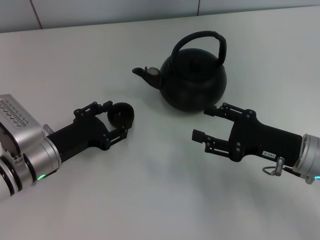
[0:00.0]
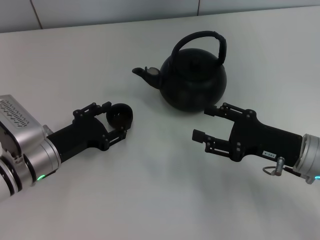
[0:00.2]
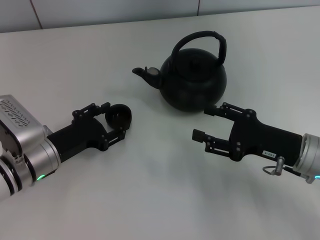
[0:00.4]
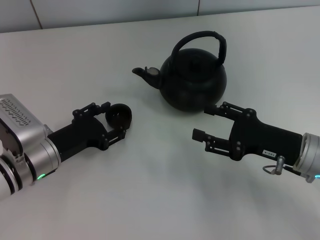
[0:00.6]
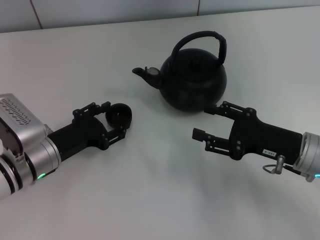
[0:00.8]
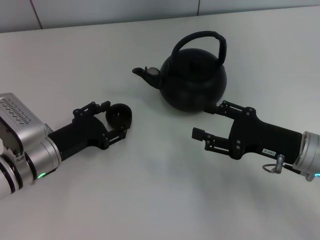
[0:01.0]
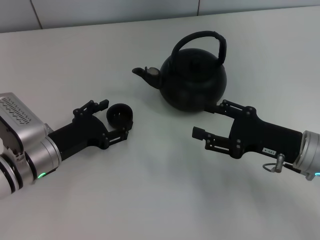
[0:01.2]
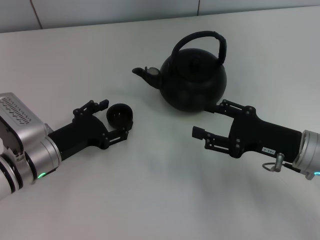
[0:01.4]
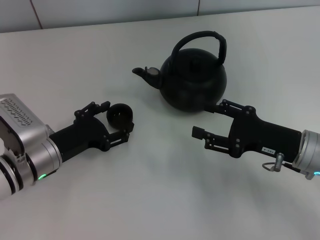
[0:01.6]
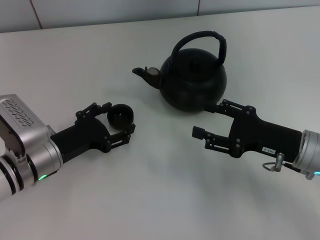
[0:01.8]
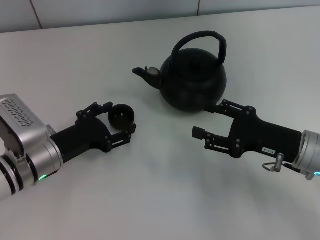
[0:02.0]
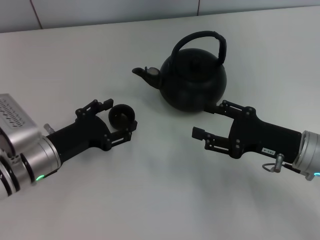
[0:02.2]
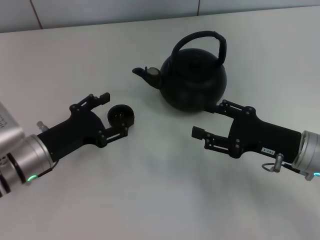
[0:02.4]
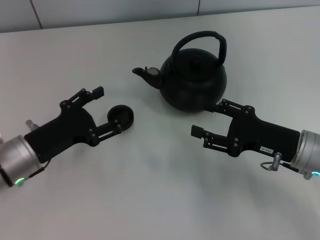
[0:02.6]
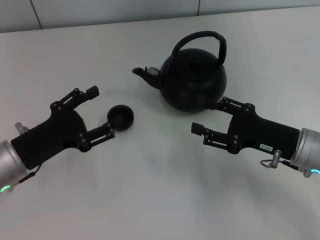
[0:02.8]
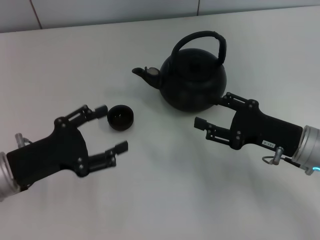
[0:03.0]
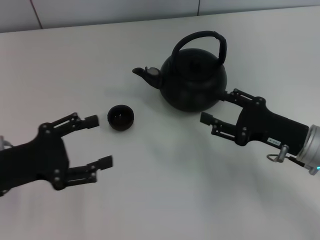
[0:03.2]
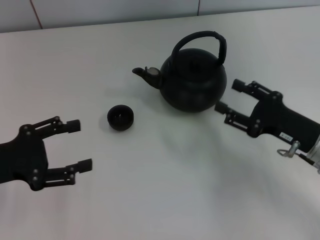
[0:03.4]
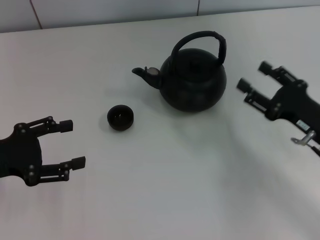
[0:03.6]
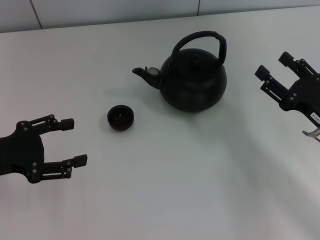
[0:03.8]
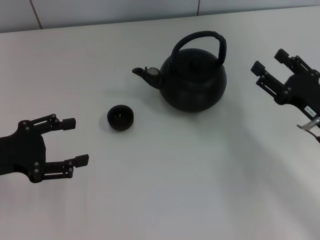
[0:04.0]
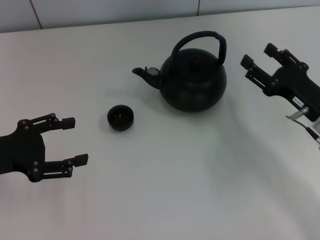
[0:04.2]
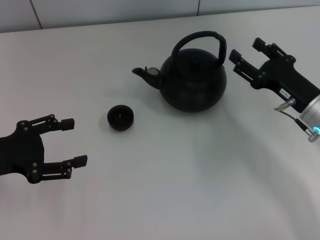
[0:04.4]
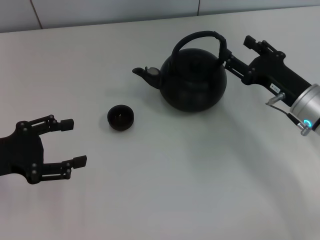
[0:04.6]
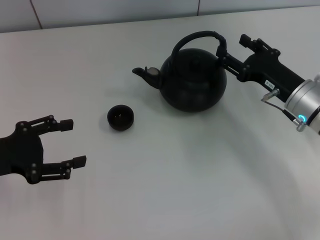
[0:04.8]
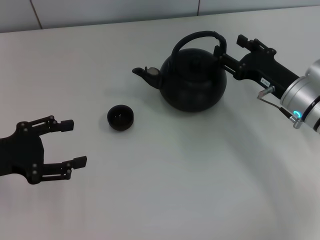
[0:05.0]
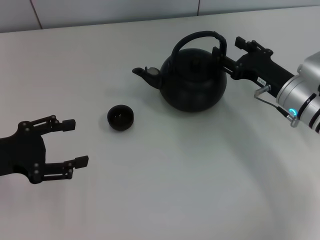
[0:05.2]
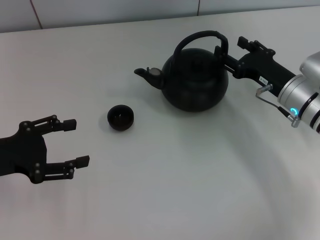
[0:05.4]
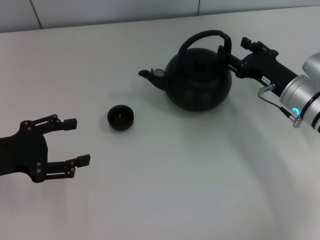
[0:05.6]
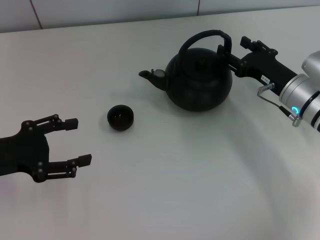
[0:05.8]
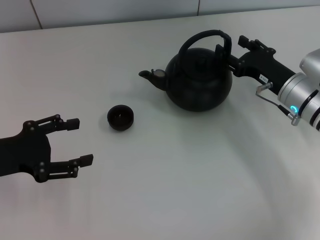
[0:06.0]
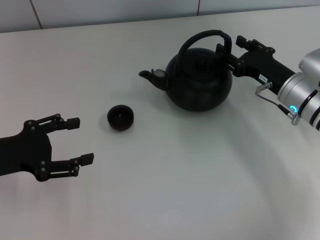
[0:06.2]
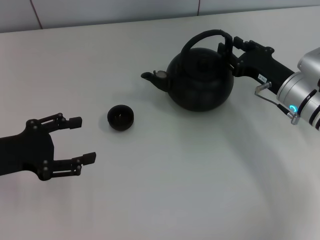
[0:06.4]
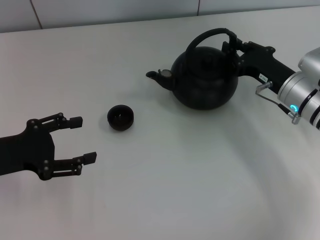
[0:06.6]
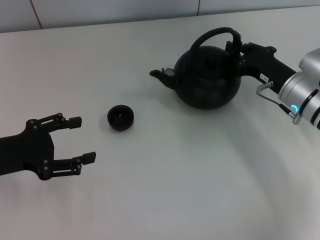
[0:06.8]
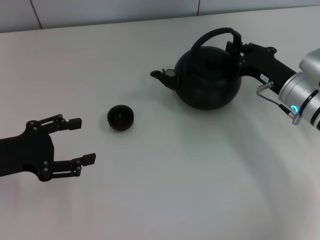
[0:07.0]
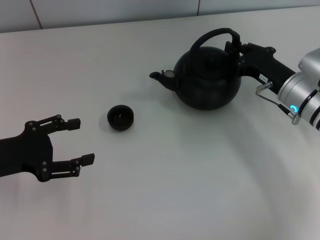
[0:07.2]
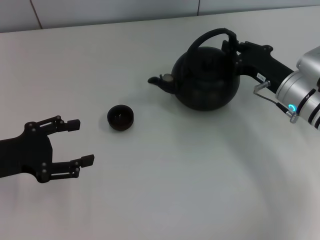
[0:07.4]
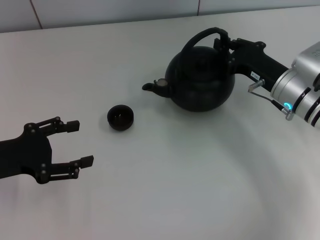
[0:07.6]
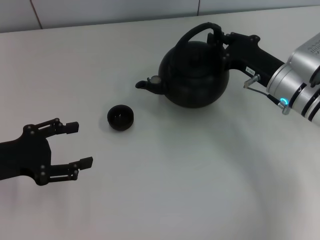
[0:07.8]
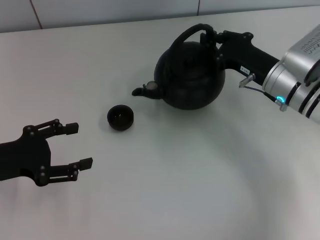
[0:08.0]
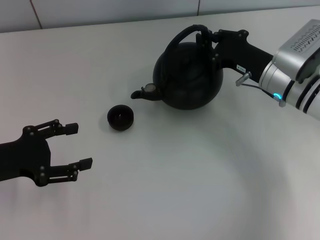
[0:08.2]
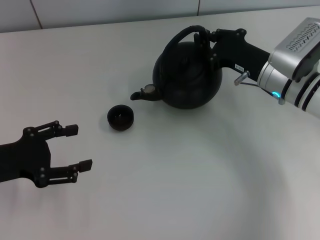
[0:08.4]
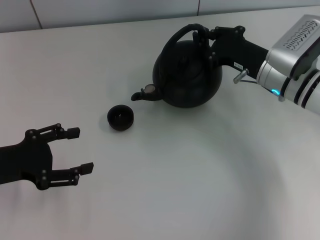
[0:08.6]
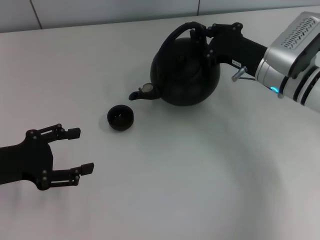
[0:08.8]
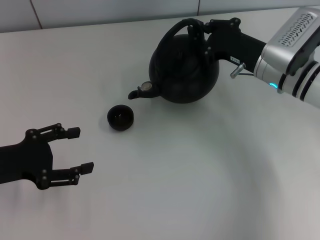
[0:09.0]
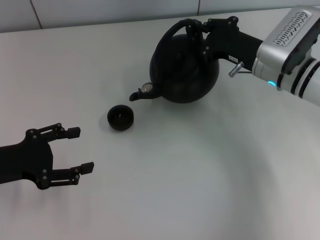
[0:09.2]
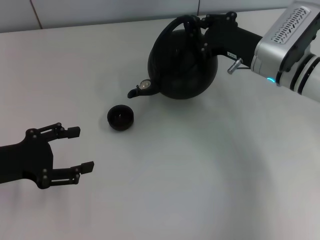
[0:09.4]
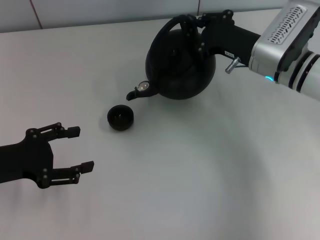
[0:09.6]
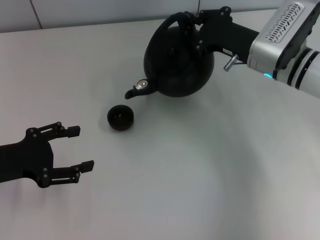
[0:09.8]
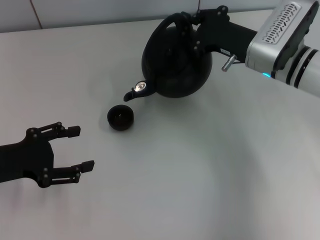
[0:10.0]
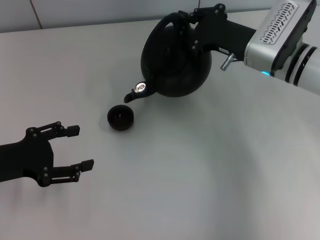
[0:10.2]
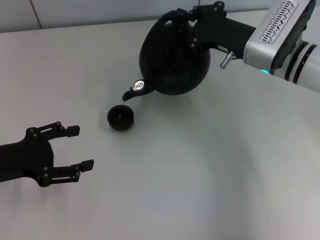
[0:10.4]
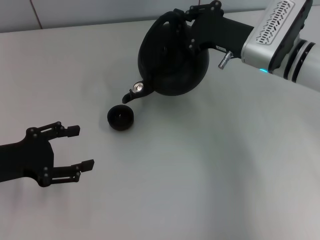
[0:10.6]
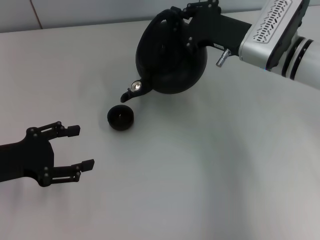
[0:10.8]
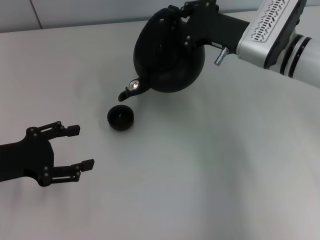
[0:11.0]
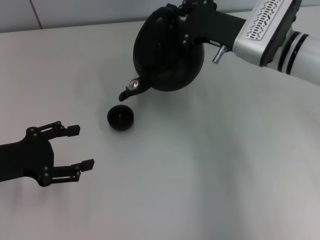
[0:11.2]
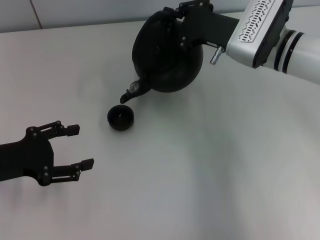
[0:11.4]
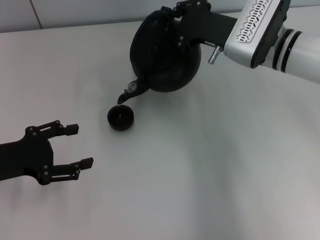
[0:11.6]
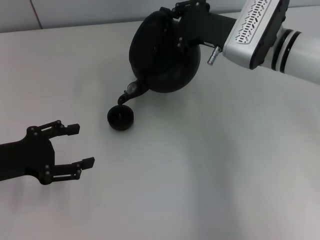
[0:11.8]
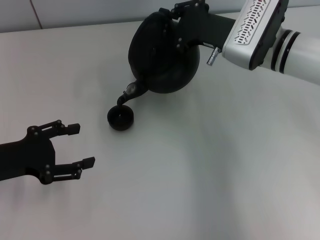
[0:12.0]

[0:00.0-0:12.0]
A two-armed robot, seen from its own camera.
Task of the whole recording: Grasp the handle of the teapot with one hand and pour tea into the teacup.
Step, 0:00.0 to 0:02.8: Place the teacup in the center of view with the left gripper.
Step, 0:03.0 to 0:08.2: Pick up the teapot with the right gripper.
0:00.0 to 0:01.6: The left gripper opens its fingers.
0:01.6 to 0:03.0: The left gripper changes place by about 10 cm.
0:03.0 to 0:04.4: The left gripper is displaced to the left by roughly 5 cm.
0:04.4 to 0:06.0: The grippers make only small movements.
0:06.0 to 0:07.6: The right gripper closes its fingers.
0:07.6 to 0:09.0: The right gripper shifts by about 5 cm.
0:09.0 to 0:10.4: The grippers move only a little.
0:10.4 to 0:12.0: The grippers make only small movements.

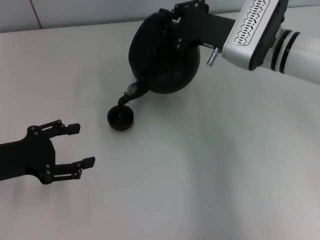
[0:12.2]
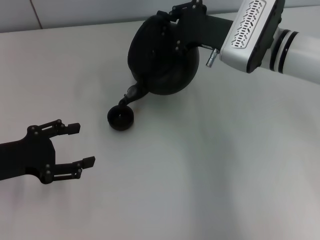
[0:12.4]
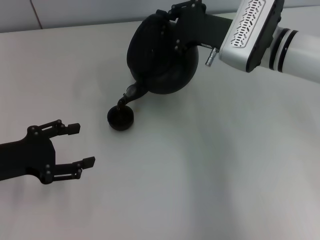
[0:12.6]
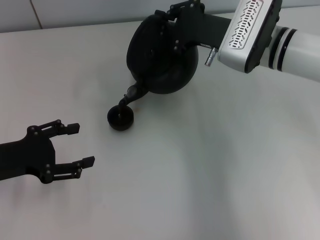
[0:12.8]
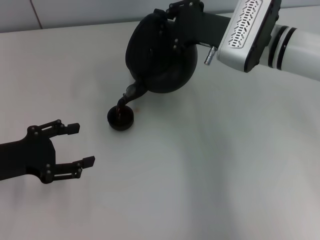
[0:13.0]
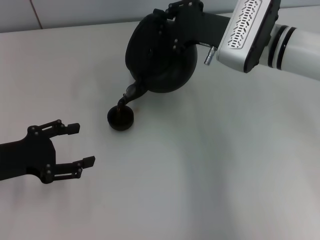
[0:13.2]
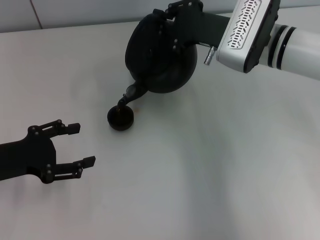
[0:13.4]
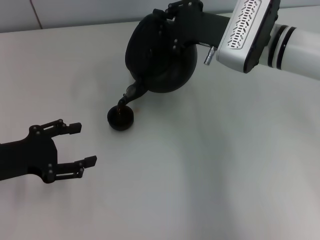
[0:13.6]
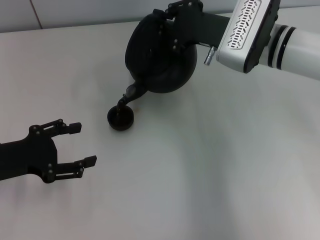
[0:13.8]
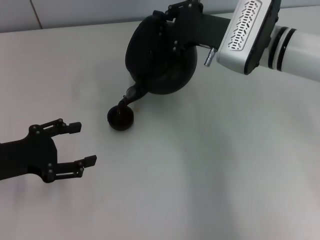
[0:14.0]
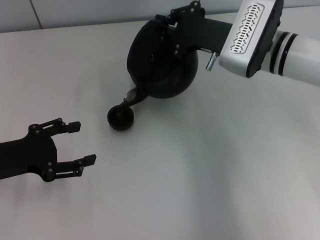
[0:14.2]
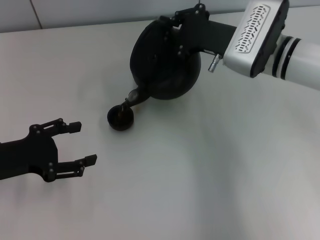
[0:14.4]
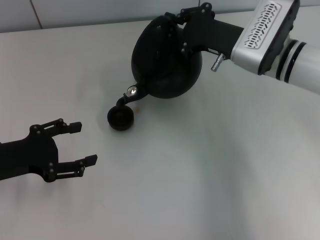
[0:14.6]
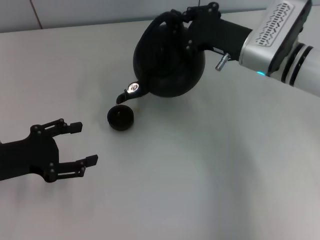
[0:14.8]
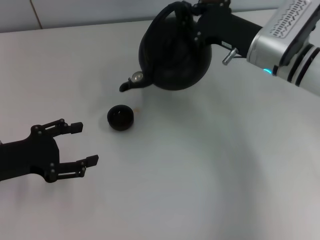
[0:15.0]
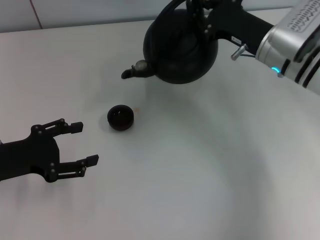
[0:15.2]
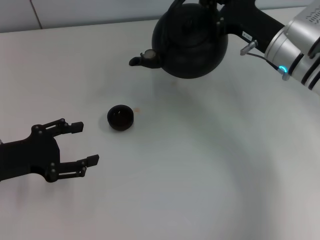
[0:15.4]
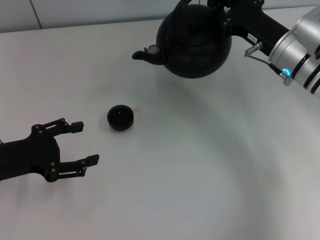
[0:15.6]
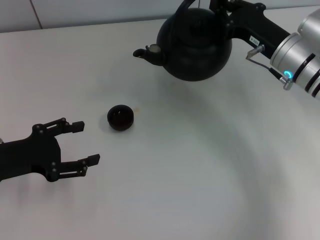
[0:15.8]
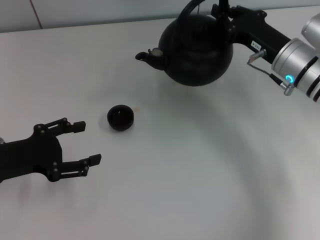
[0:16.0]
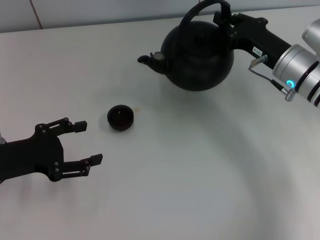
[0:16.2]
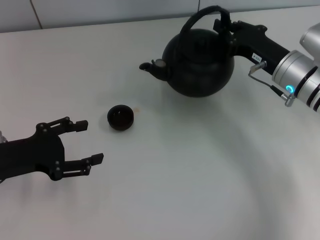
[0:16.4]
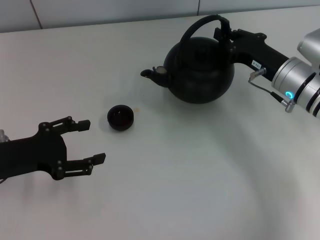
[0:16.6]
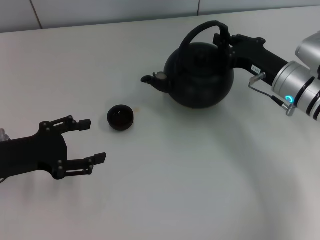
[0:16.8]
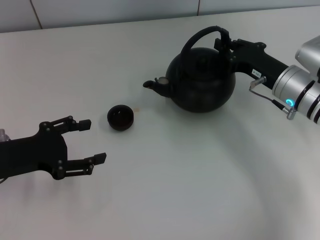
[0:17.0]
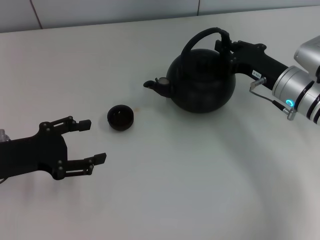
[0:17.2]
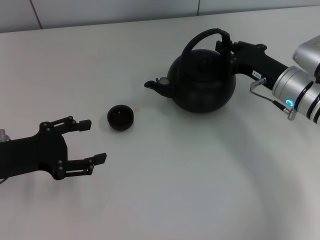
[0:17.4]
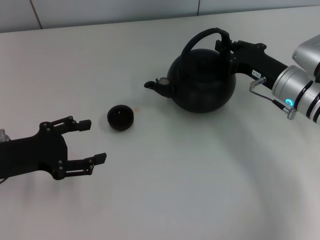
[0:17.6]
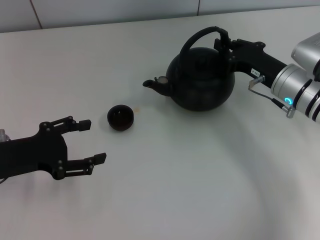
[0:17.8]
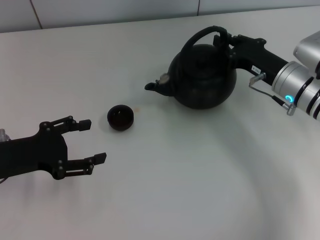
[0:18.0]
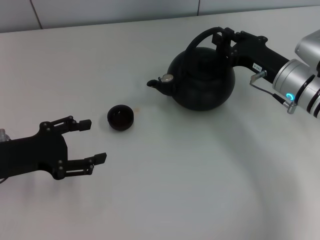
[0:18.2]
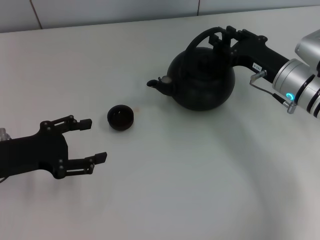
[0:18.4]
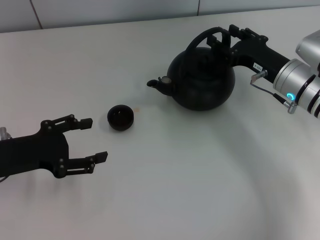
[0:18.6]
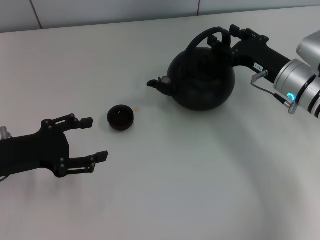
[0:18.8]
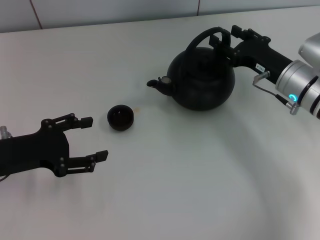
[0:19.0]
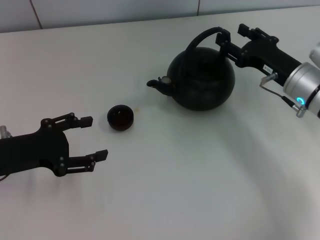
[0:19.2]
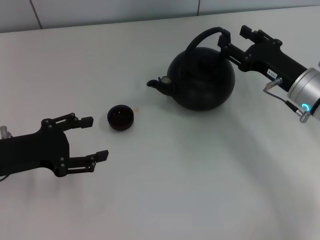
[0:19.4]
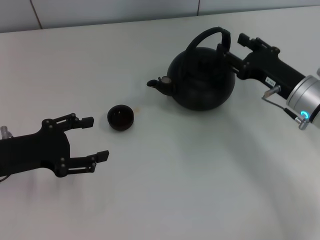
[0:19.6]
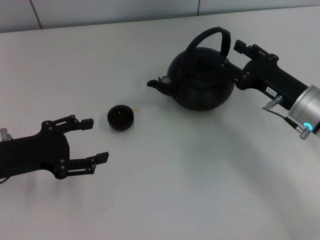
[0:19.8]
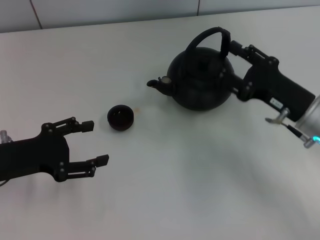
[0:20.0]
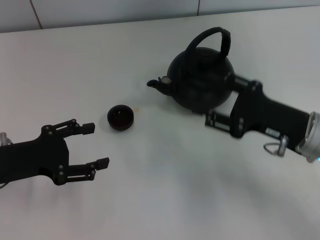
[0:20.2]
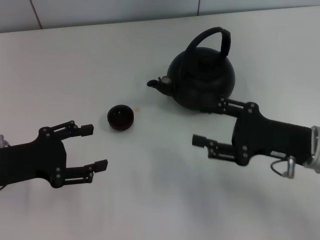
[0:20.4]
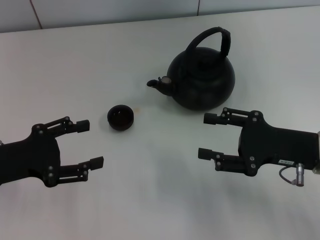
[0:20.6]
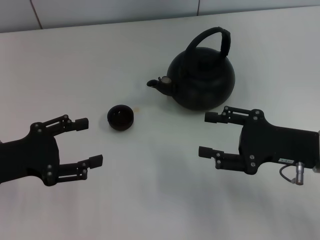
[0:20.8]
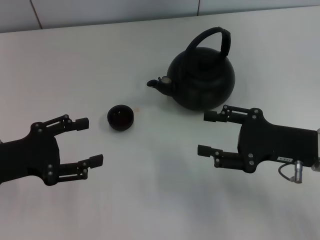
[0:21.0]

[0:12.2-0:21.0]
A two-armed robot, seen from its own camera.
Task of the whole recording: Grasp the handle of the teapot with one hand and pour tea into the teacup.
Step, 0:15.0 to 0:19.4: Put down the teapot with the right gripper.
0:12.2 to 0:13.6: The two grippers keep their place.
0:13.6 to 0:15.2: The right gripper ends up about 5 cm from where it was.
0:15.2 to 0:16.6: The right gripper moves about 5 cm.
0:16.6 to 0:18.0: Both grippers stay put.
0:18.0 to 0:19.6: The right gripper opens its fingers.
0:19.6 to 0:21.0: The right gripper heads backward, covering approximately 5 cm.
